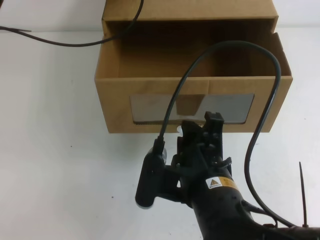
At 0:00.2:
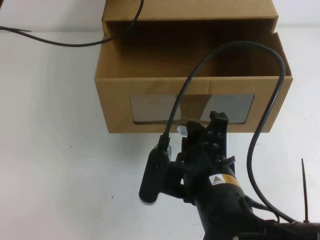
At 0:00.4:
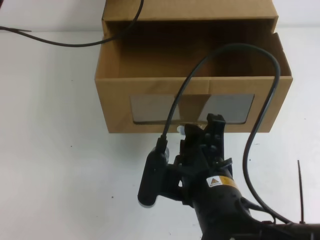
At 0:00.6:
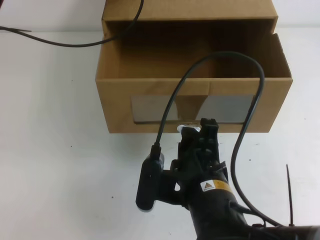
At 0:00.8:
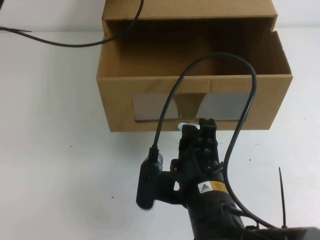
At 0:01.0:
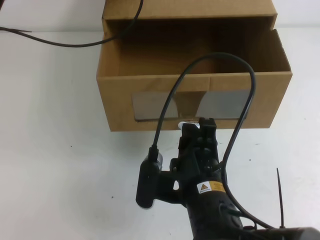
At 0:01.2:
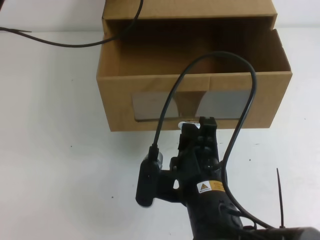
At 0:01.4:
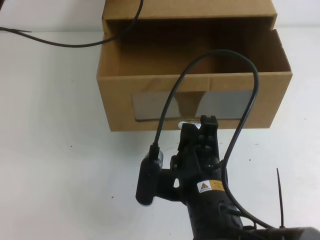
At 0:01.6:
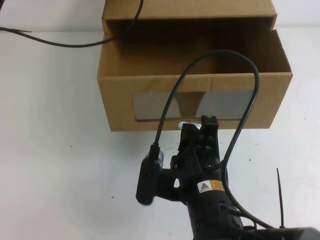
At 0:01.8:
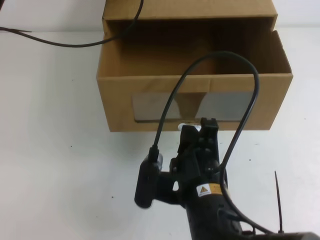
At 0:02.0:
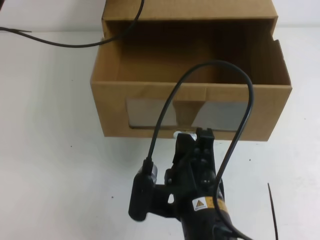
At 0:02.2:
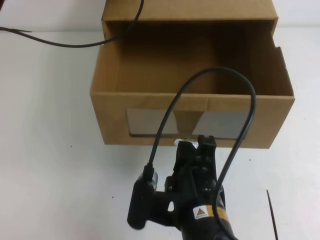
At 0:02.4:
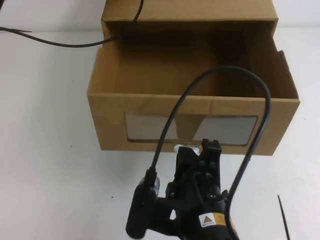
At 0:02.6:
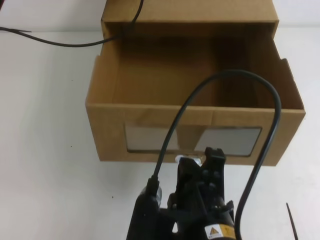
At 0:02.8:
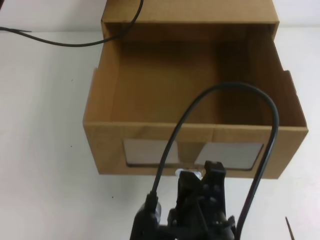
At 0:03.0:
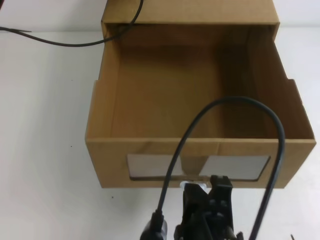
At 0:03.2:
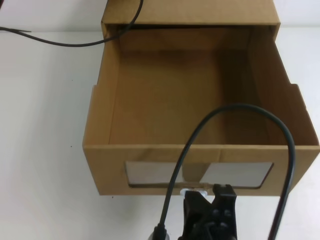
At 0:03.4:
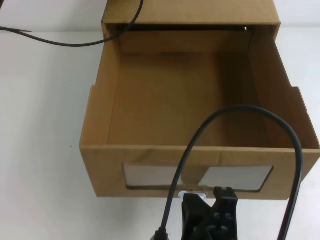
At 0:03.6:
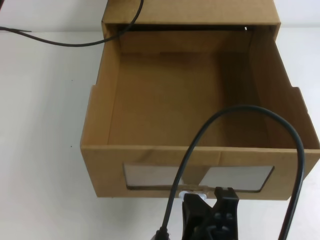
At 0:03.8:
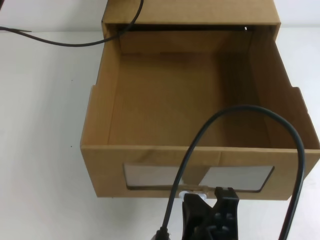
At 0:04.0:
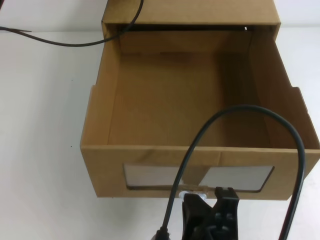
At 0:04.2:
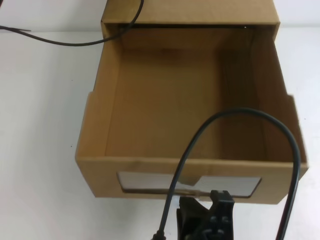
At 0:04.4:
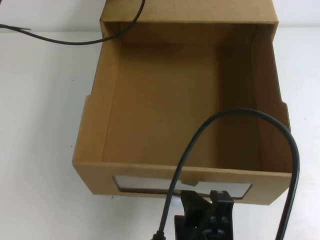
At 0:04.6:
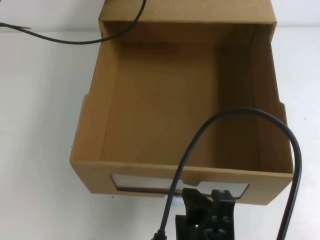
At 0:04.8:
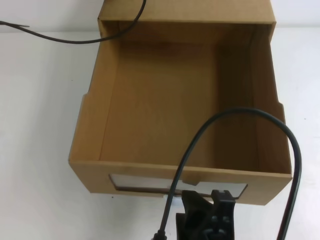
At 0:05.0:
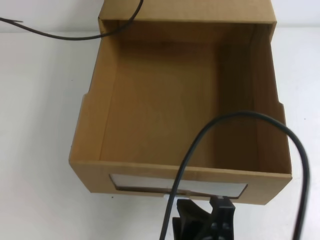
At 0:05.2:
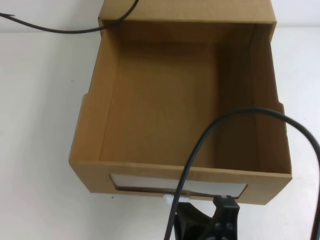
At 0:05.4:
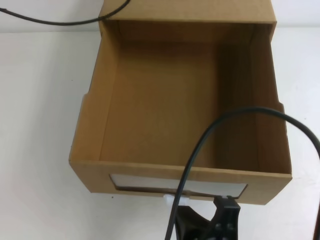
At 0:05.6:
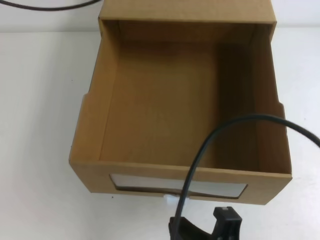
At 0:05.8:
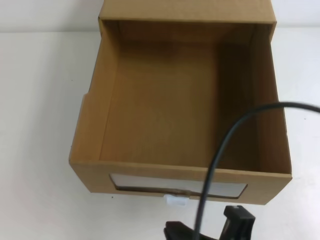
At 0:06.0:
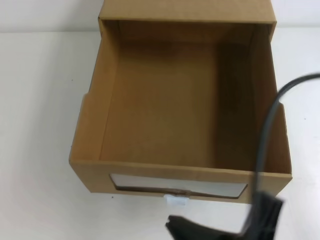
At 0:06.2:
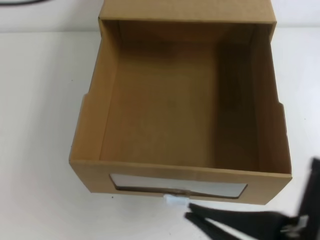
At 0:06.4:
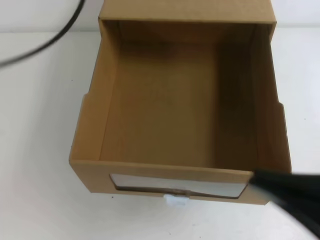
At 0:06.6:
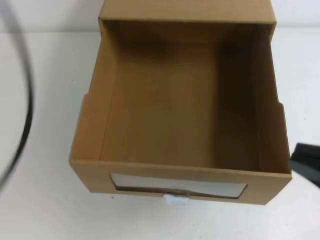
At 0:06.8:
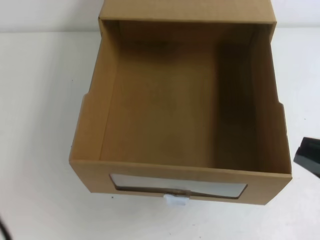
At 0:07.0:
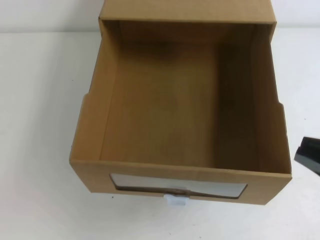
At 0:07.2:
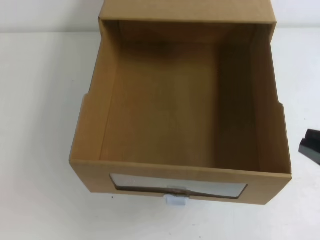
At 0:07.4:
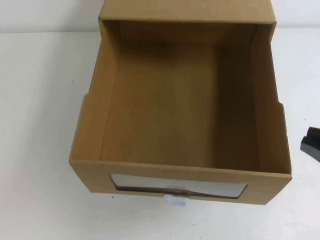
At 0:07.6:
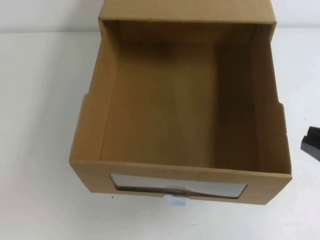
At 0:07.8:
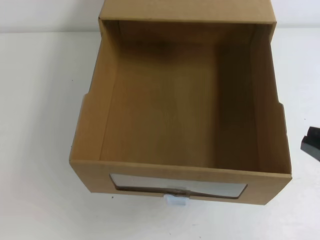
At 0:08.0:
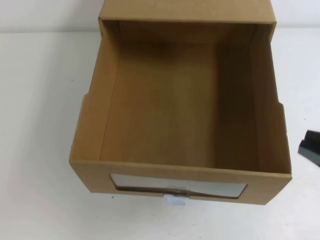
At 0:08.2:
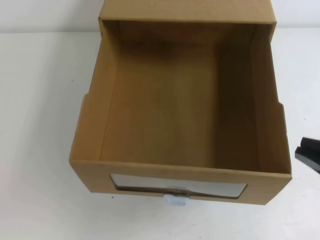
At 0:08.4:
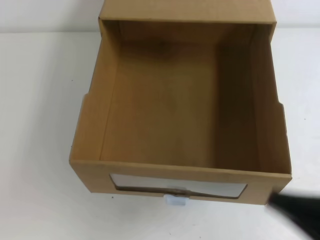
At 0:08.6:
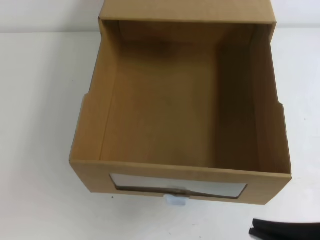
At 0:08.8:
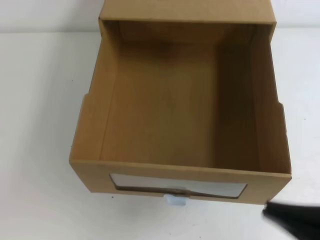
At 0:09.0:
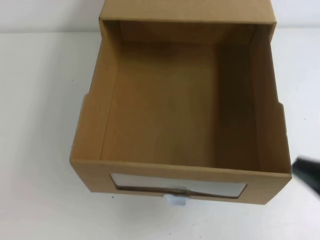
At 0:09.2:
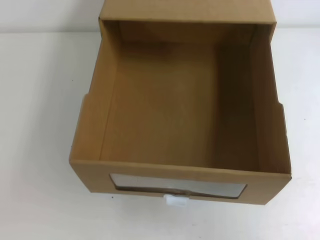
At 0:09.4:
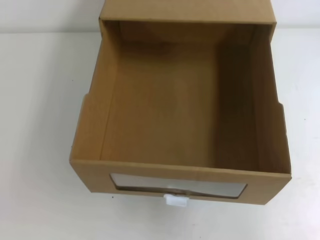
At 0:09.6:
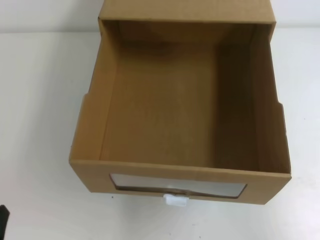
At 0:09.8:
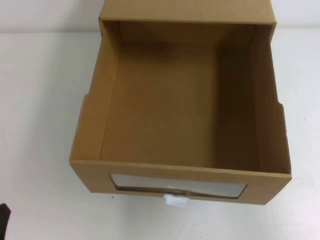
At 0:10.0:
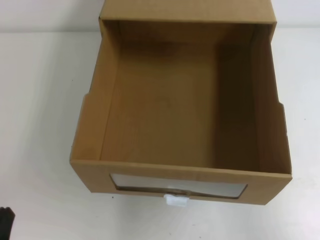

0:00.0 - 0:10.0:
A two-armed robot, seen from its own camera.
Task of the whole recording: open the shoebox on the table.
0:00.0 - 0:01.4: The right gripper closes its fingers.
0:01.4 - 0:02.8: The right gripper heads backward, covering some 10 cm.
0:02.8 - 0:04.2: The right gripper opens its fingers; the left gripper opens.
0:04.2 - 0:05.8: The left gripper shifts roughly 15 cm upward and backward, and closes up. Meanwhile the right gripper shifts by approximately 5 cm, and closes up.
0:05.8 - 0:07.2: The right gripper heads to the right and upward, covering some 20 cm; the left gripper moves backward and downward, roughly 40 cm.
0:07.2 - 0:08.6: The right gripper heads downward, covering about 5 cm.
0:08.6 - 0:10.0: The left gripper moves downward, some 15 cm, while the right gripper goes about 15 cm to the right and downward.

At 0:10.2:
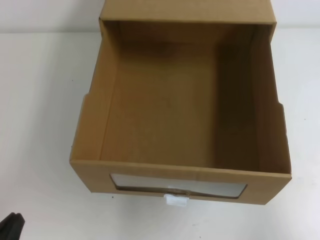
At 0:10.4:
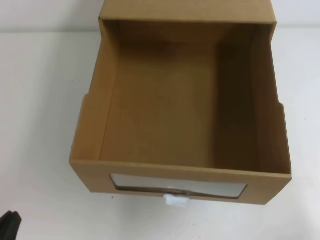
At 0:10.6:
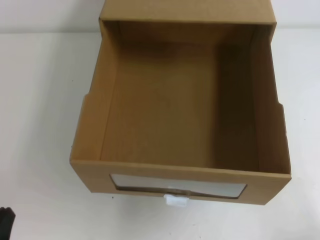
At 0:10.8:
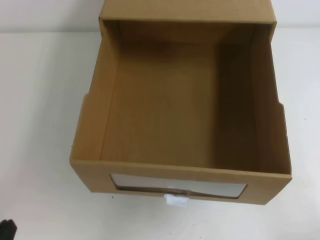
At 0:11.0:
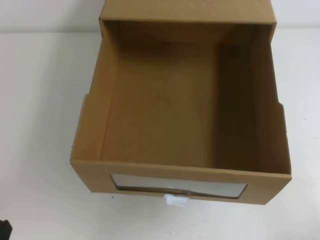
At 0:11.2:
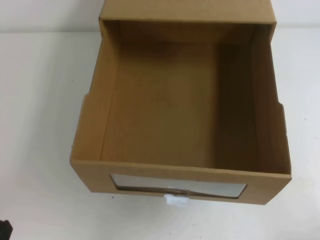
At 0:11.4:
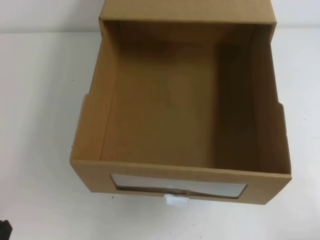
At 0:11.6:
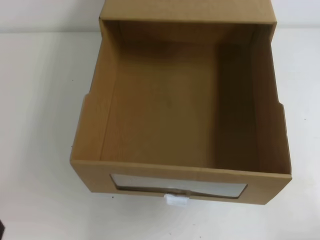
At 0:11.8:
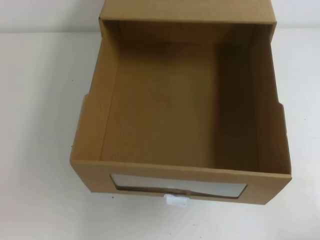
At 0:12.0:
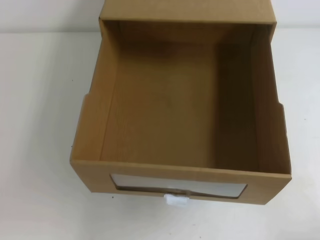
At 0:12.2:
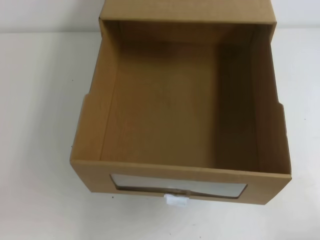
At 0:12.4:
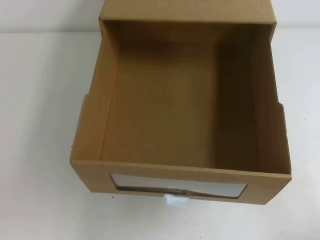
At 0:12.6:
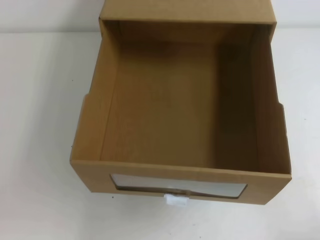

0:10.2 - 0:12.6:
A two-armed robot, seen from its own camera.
Task of the whole recording: open the shoebox on the table.
0:10.2 - 0:11.4: The right gripper heads downward, covering approximately 10 cm.
